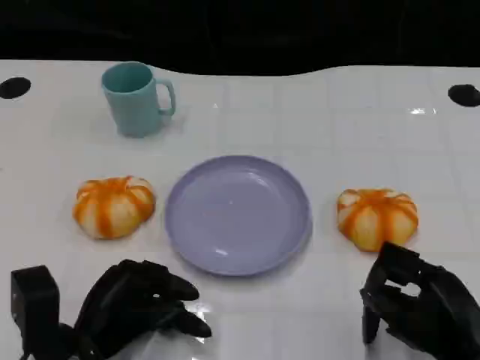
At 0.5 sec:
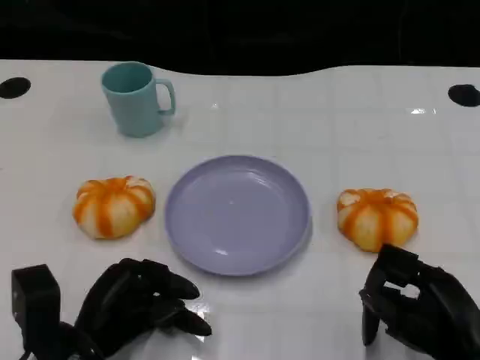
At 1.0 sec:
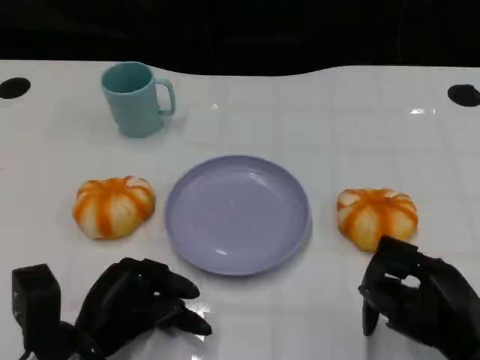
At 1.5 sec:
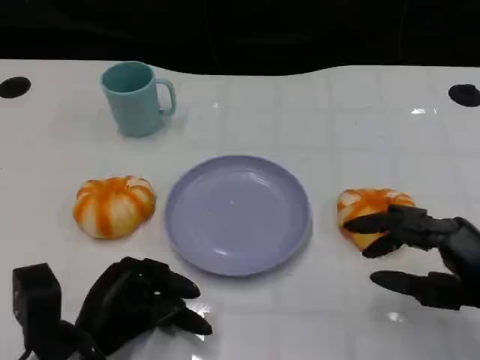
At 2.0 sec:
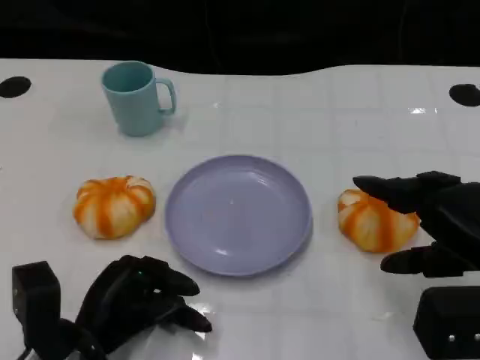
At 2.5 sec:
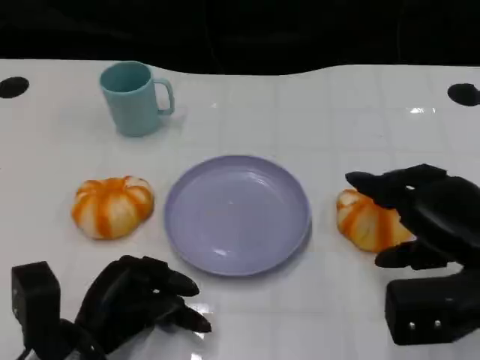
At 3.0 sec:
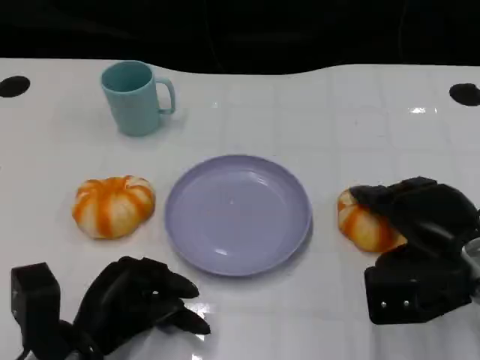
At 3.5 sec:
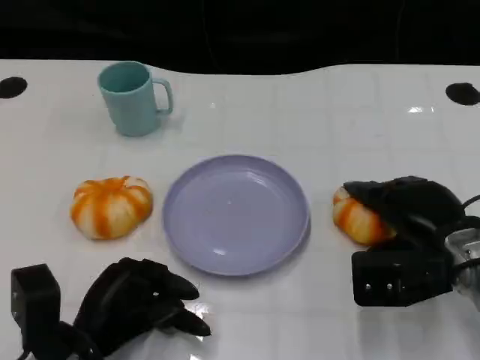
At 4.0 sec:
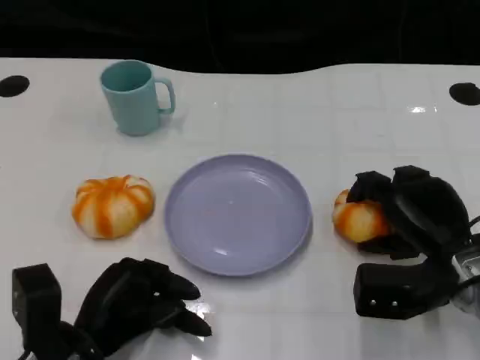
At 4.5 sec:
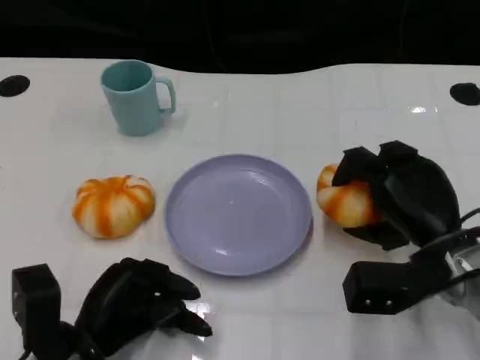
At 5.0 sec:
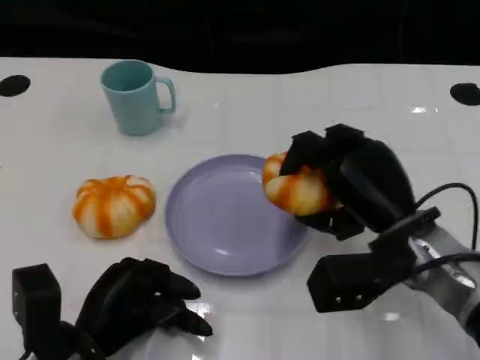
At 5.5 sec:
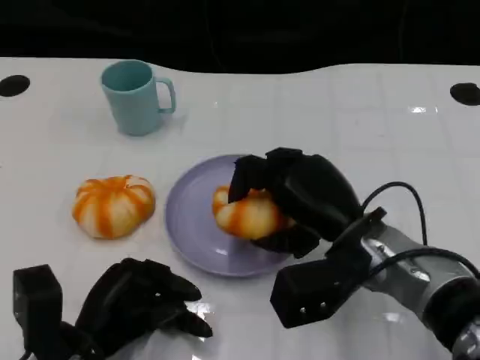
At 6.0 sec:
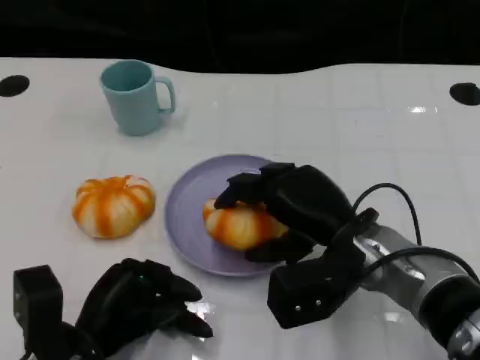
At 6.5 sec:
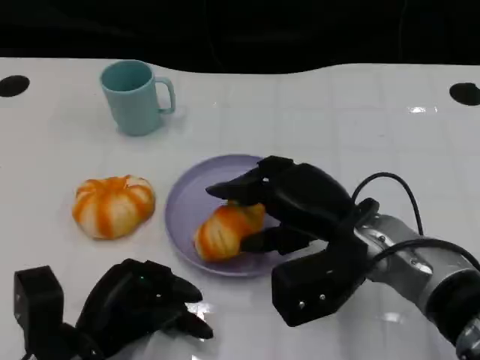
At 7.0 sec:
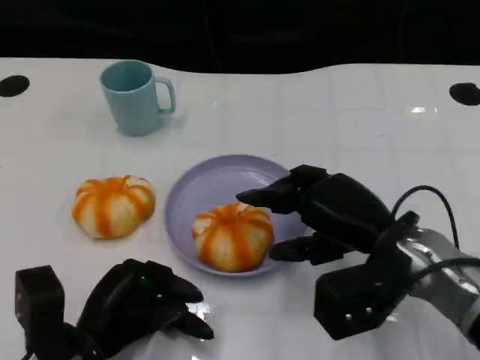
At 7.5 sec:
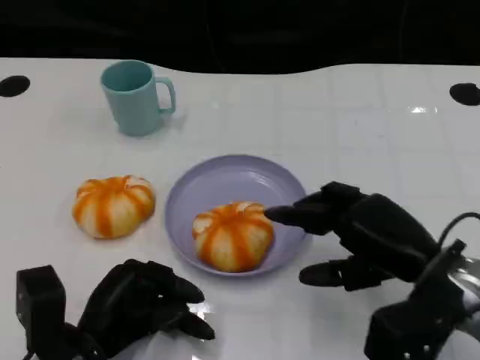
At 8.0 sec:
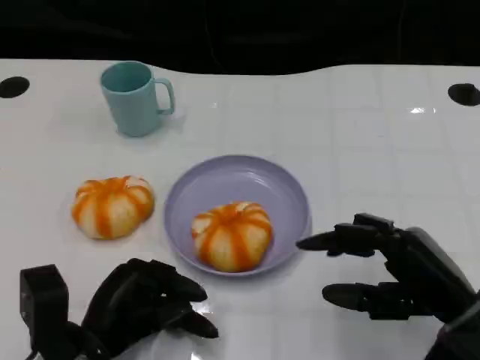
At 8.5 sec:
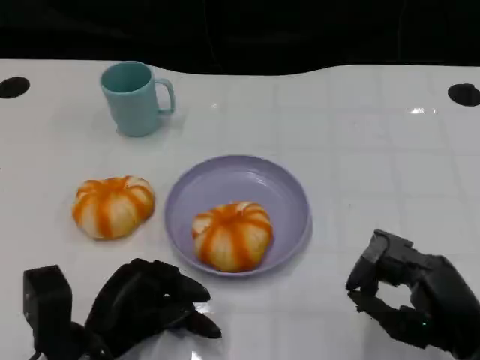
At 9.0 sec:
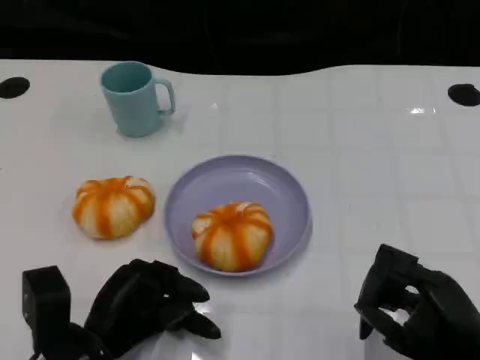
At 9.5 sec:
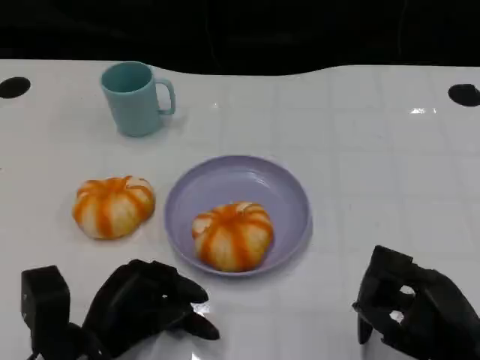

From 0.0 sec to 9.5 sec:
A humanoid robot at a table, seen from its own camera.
Task of the whole recording: Grasp the bread from the table and place it into the plate.
From 0.0 sec to 2.0 sec: The right hand moves upward and forward, about 10 cm.
From 2.0 sec to 4.0 sec: The right hand is displaced downward and forward by roughly 10 cm.
From 4.0 sec to 5.5 sec: The right hand moves to the left, some 10 cm.
From 5.5 sec to 7.5 sec: The right hand heads to the right, covering approximately 10 cm.
From 7.5 sec to 9.5 sec: The right hand travels backward by roughly 10 cm.

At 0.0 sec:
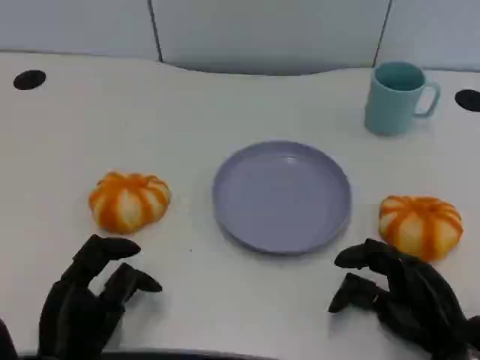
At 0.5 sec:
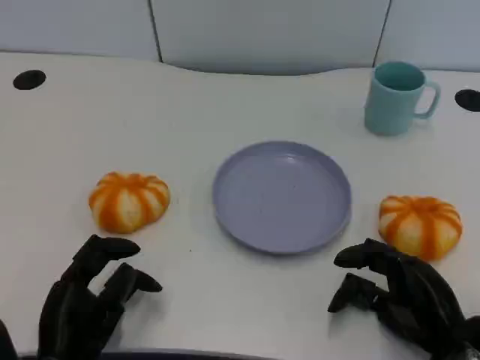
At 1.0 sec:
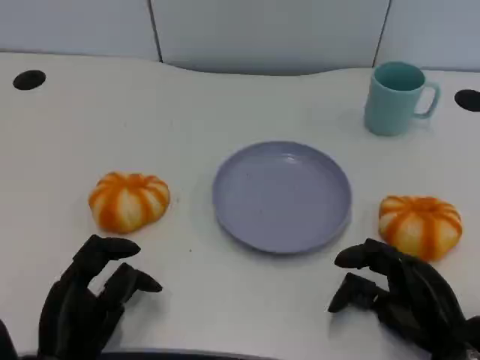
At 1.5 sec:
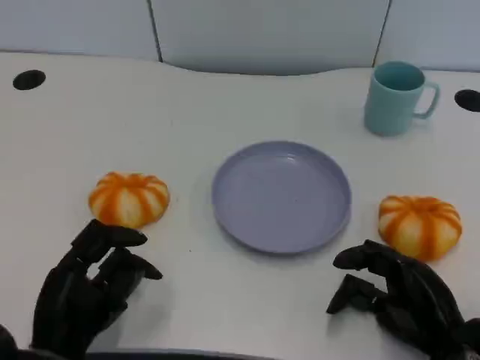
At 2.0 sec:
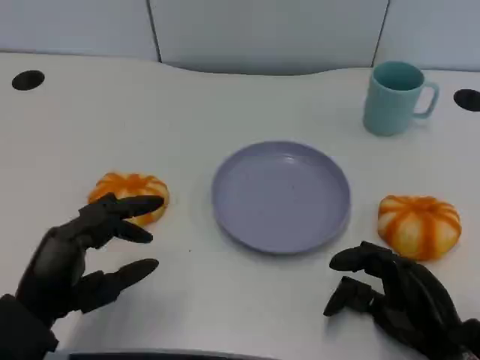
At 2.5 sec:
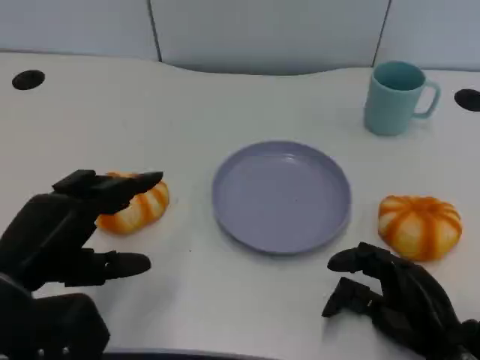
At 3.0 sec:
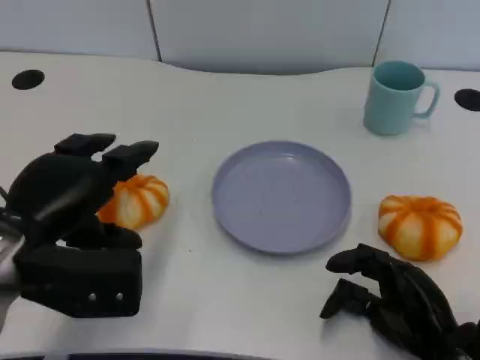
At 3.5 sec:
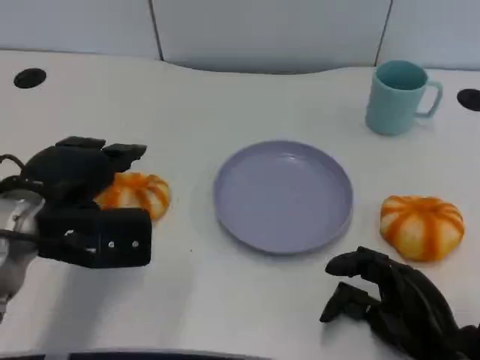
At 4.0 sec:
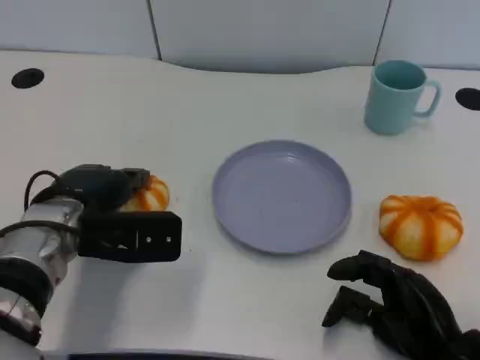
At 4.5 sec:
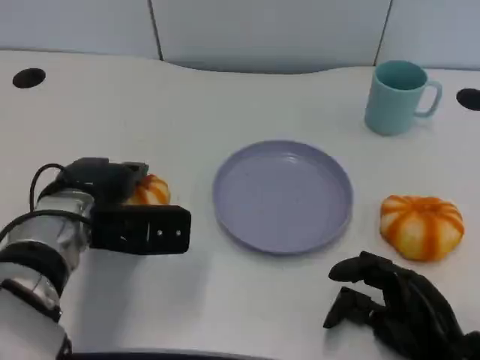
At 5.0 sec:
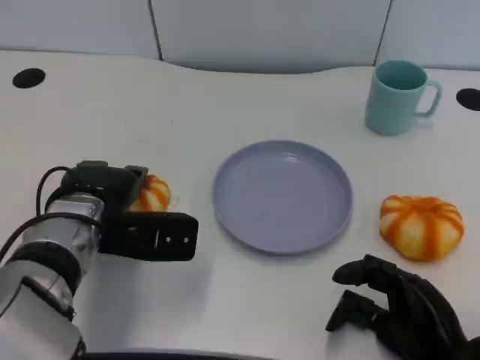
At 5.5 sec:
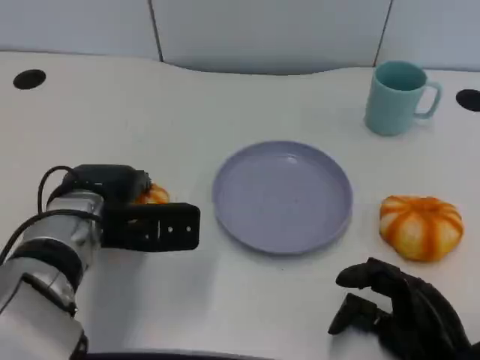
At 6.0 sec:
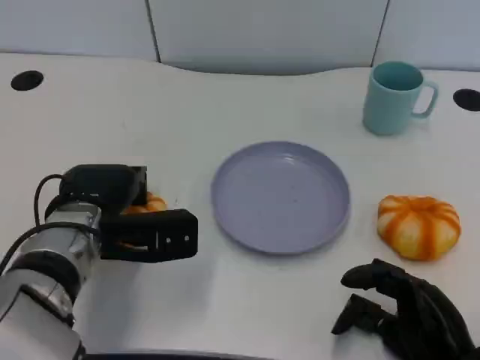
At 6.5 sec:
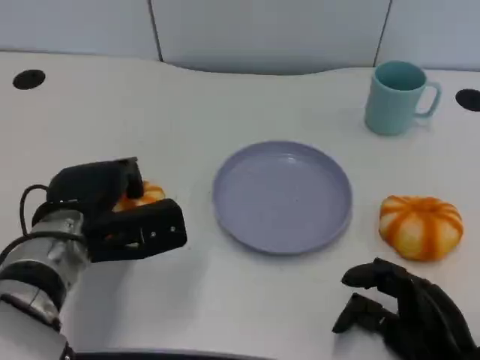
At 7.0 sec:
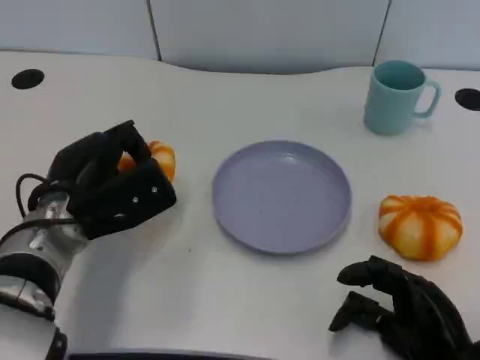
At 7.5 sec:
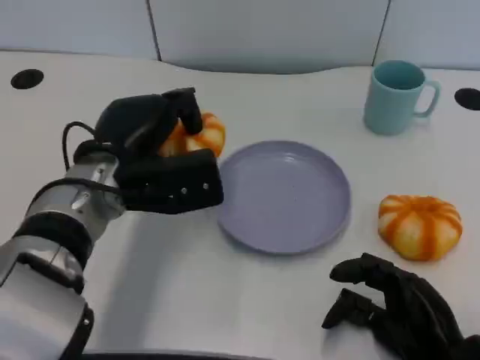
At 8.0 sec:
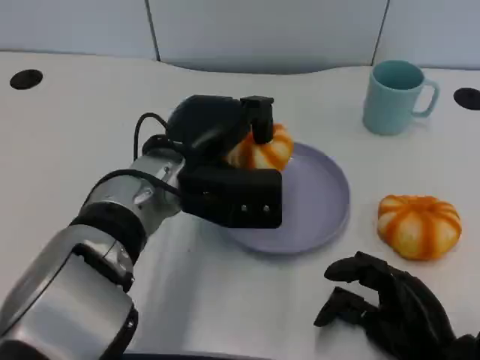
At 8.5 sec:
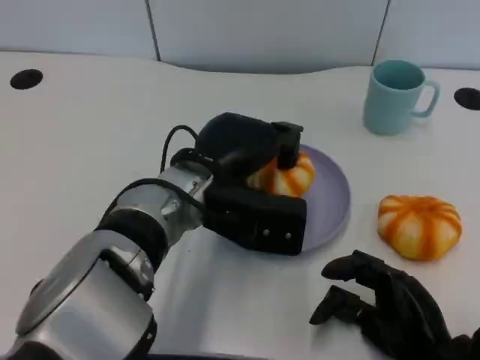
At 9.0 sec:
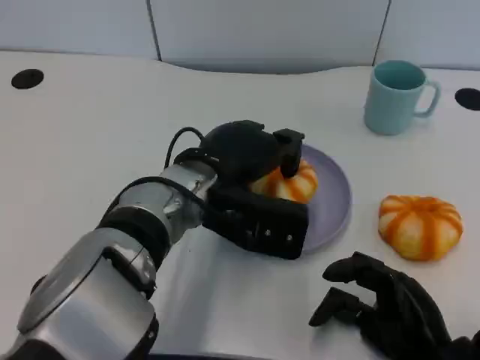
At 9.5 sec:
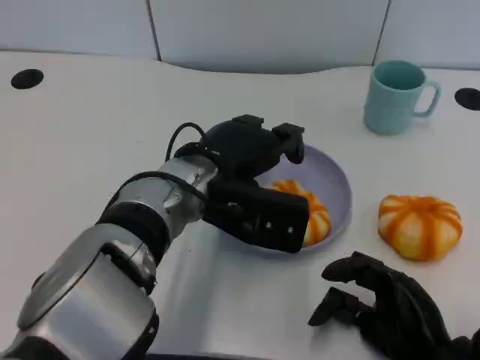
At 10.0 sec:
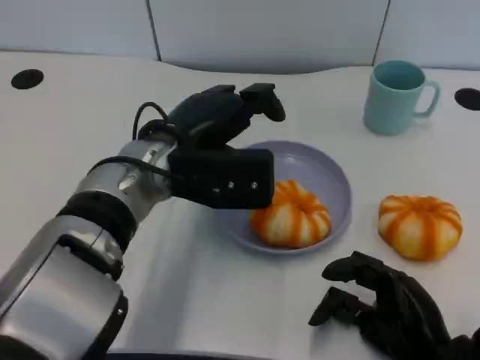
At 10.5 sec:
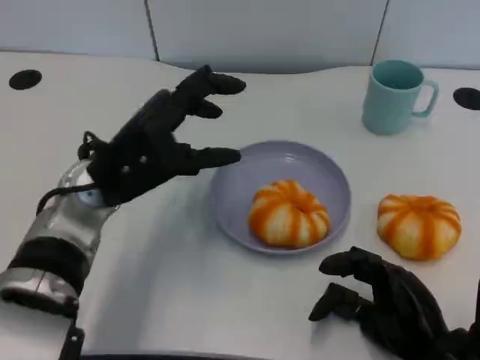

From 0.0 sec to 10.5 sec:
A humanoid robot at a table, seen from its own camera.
Task of the whole recording: Grasp the bread from the table and place it into the plate.
From 0.0 sec to 2.0 sec: The left hand moves upward, some 5 cm.
From 2.0 sec to 4.0 sec: The left hand heads forward, covering some 10 cm.
From 4.0 sec to 6.5 sec: The hands make only small movements.
From 6.5 sec to 8.5 sec: The left hand goes some 10 cm to the right.
From 8.5 sec to 10.5 sec: The left hand moves to the left, approximately 10 cm.

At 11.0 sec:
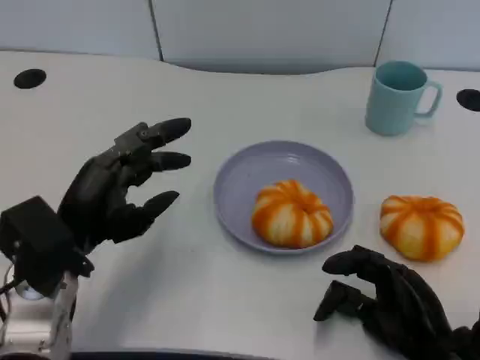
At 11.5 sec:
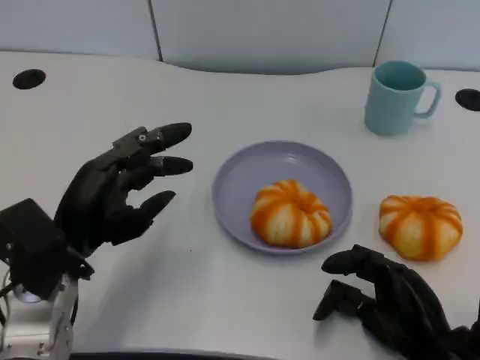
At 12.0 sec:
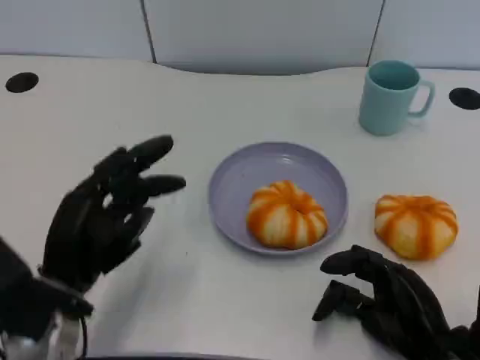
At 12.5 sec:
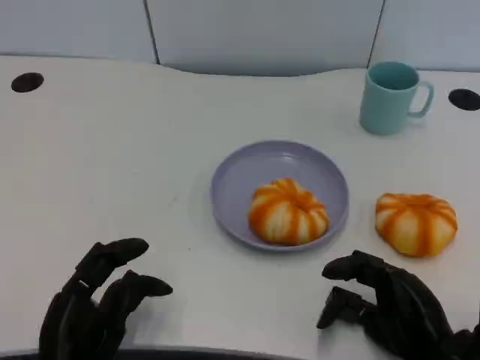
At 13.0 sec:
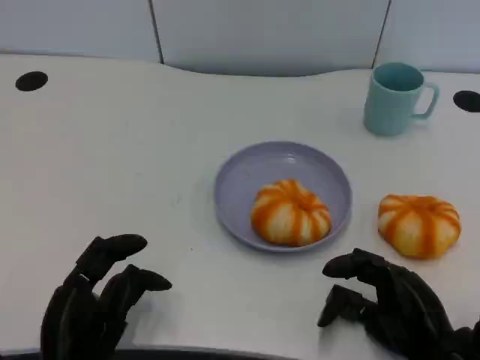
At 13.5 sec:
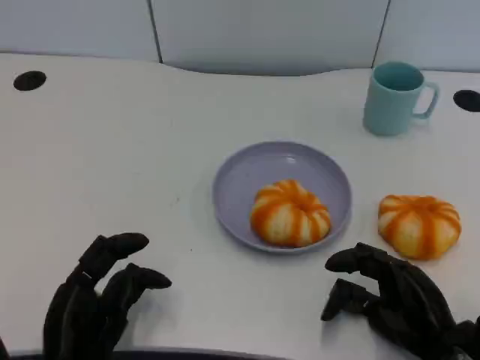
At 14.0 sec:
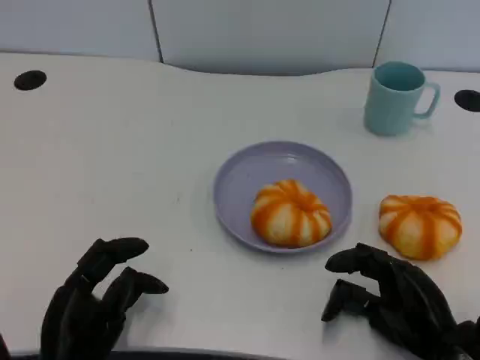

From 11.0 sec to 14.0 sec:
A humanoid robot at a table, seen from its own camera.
Task of the whole recording: Grasp the bread from the table and place it into the plate.
From 11.0 sec to 12.5 sec: The left hand travels backward and downward by roughly 10 cm.
From 12.5 sec to 14.0 sec: Both hands stay put.

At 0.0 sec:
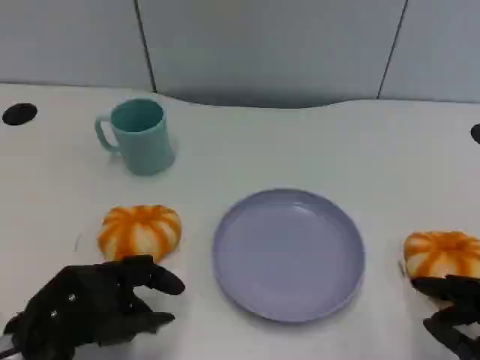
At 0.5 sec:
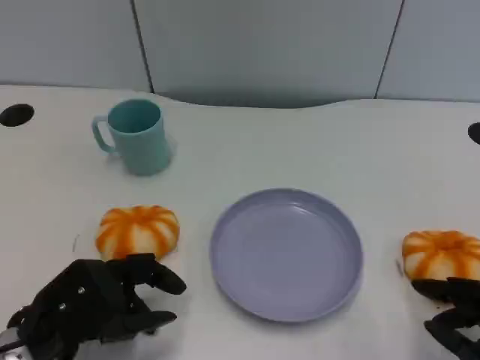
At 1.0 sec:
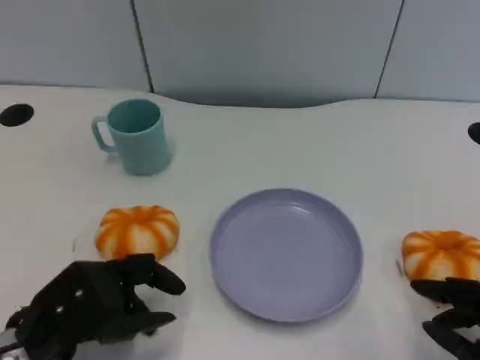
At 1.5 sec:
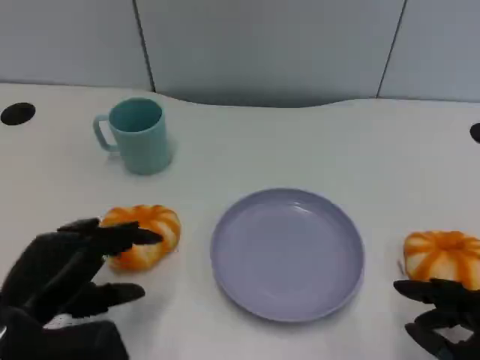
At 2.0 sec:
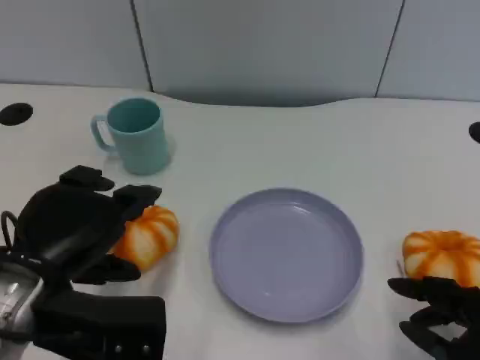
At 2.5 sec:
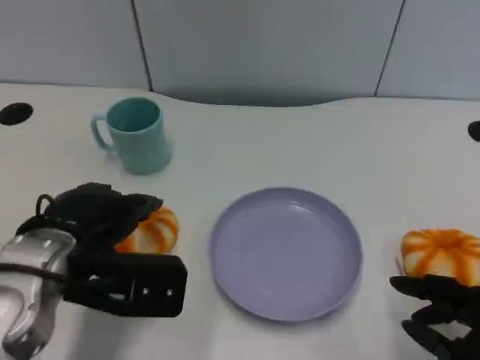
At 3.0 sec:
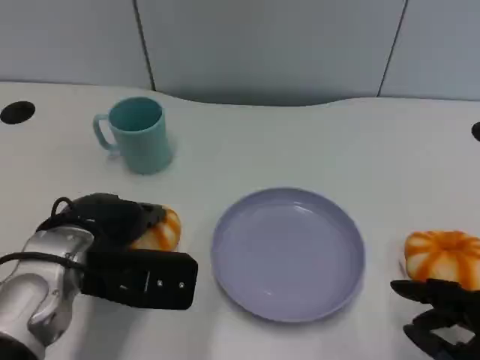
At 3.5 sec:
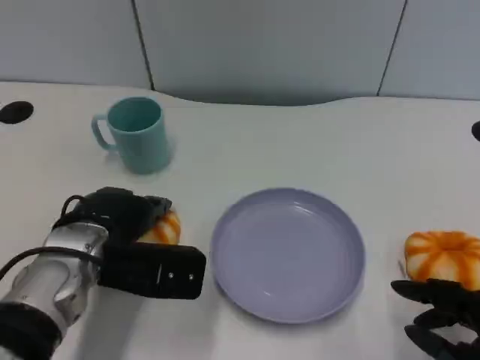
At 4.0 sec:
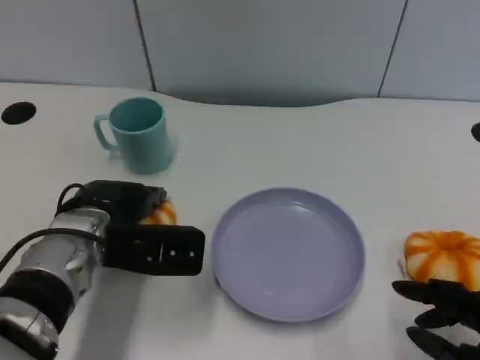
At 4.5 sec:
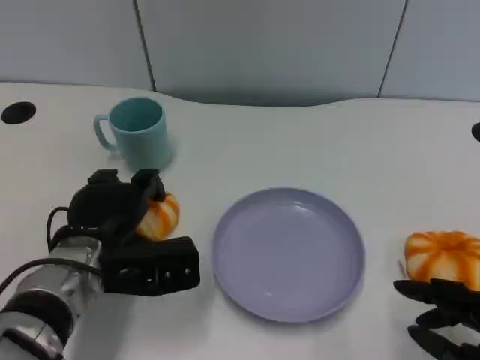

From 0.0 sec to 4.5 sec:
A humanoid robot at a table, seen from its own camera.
Task of the whole recording: Grasp the bread from the table and place it into the plate.
From 0.0 sec to 2.0 sec: The left hand moves upward, about 10 cm.
From 2.0 sec to 4.5 sec: The left hand shifts roughly 10 cm downward and forward.
